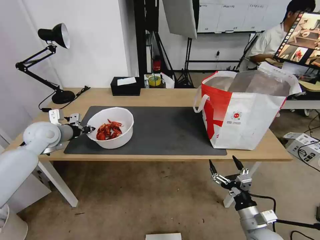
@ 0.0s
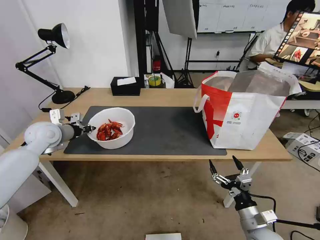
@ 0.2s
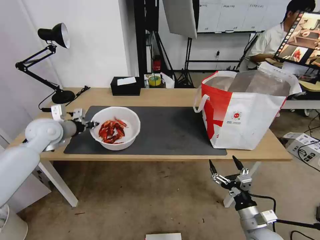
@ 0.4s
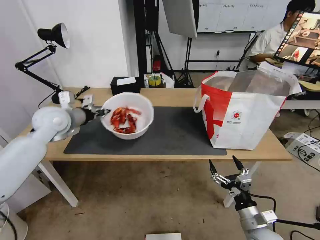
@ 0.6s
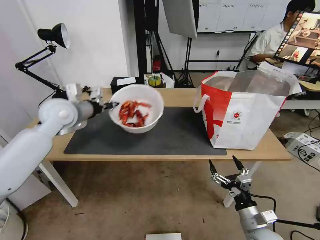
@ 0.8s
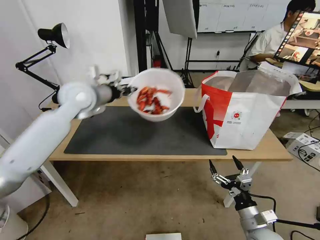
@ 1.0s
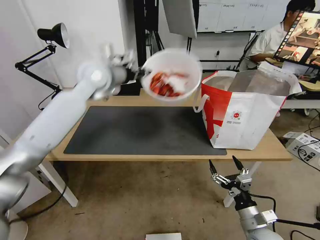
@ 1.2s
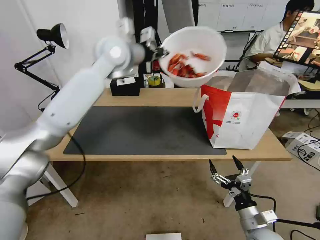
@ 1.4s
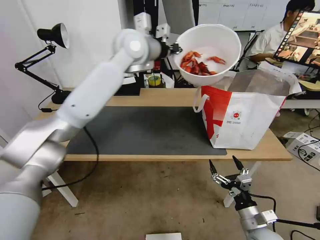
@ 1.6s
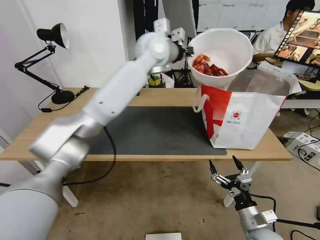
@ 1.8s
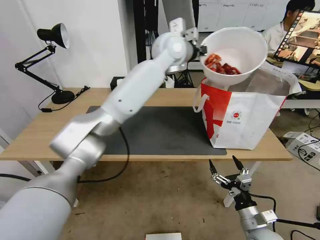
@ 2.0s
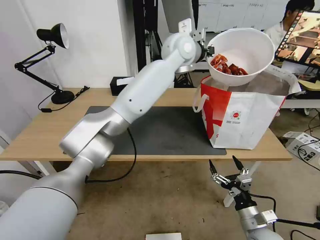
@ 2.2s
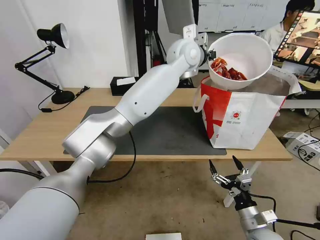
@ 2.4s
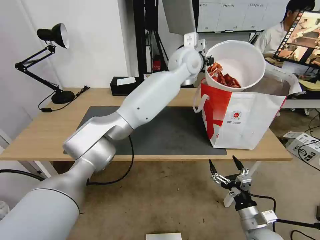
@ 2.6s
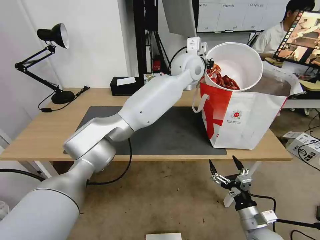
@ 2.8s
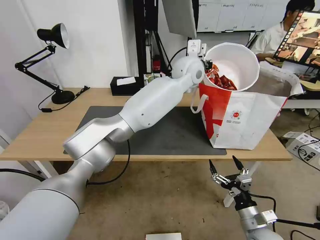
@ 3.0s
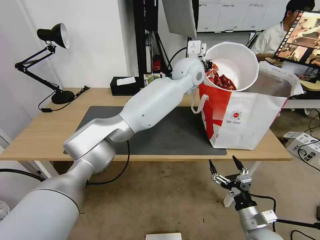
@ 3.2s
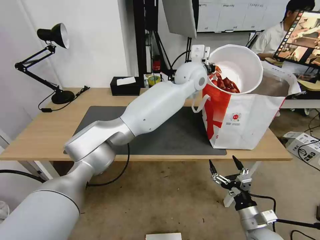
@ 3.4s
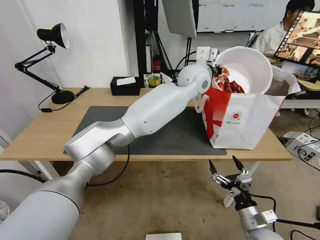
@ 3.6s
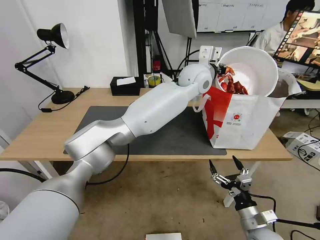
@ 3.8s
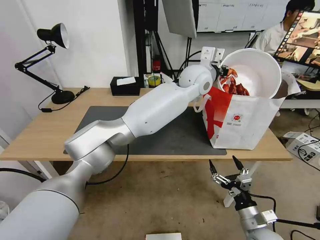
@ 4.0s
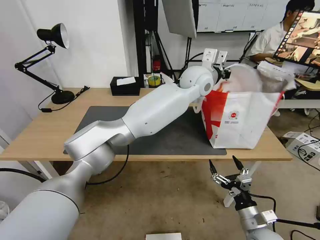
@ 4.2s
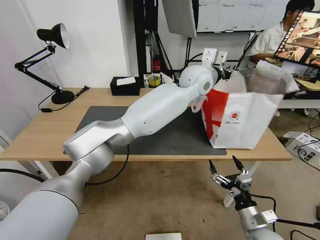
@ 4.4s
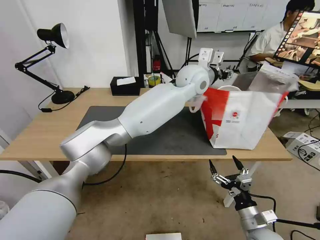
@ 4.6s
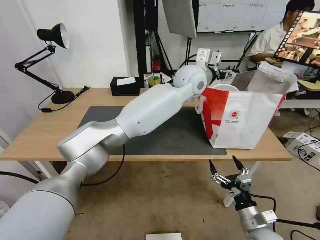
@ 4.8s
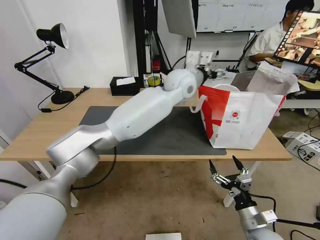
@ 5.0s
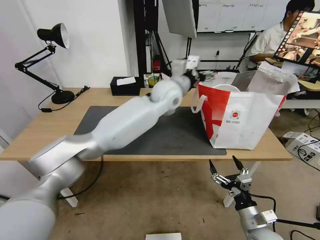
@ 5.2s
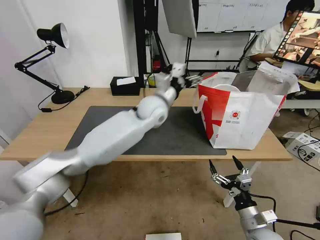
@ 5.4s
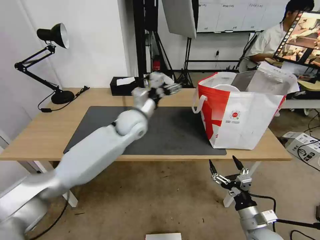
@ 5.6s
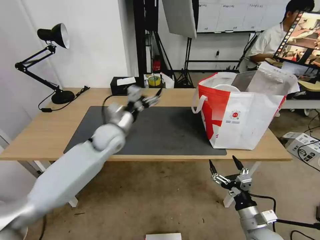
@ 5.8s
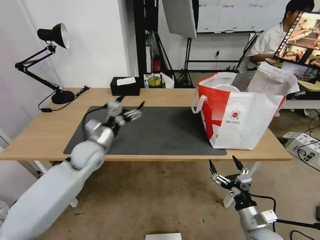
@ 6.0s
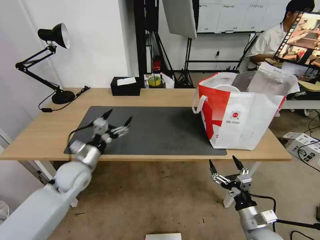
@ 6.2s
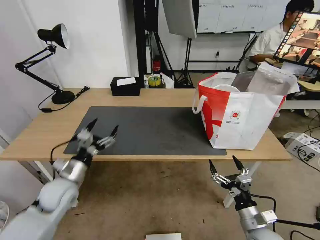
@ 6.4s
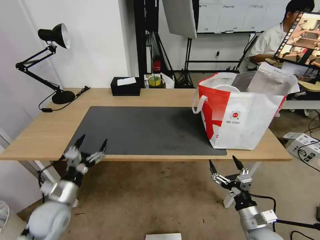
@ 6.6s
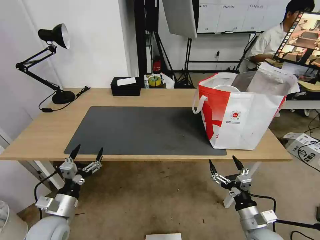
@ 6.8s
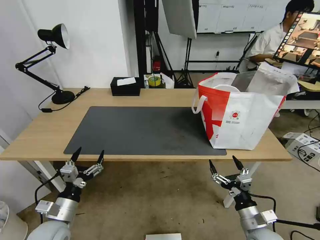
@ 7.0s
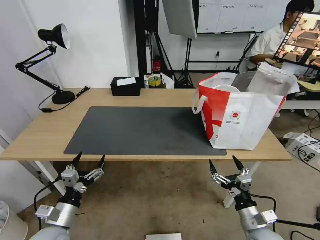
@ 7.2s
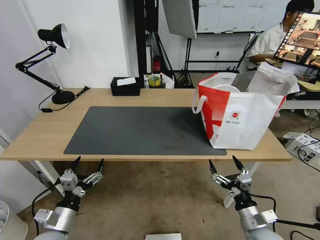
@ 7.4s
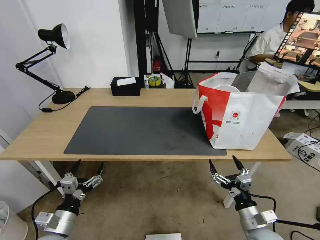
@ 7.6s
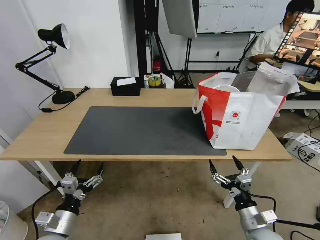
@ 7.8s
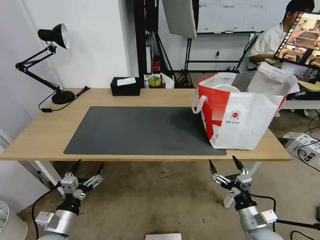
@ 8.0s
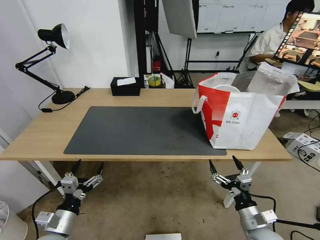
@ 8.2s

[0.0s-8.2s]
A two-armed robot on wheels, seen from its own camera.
Task of the whole recording: Pick up the trash from the table and place it into the takeout bag.
0.0s to 1.6s: The left gripper goes approximately 40 cm to the right and upward.
1.6s to 3.2s: The left gripper is displaced to the right and downward by approximately 15 cm.
3.2s to 5.0s: The left gripper opens its fingers.
5.0s to 6.6s: The left gripper moves to the left, backward and downward, some 50 cm.
6.6s to 8.2s: The left gripper goes some 10 cm backward.

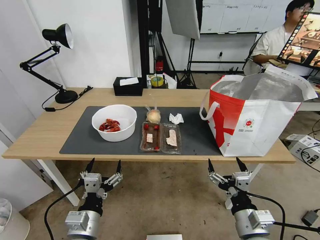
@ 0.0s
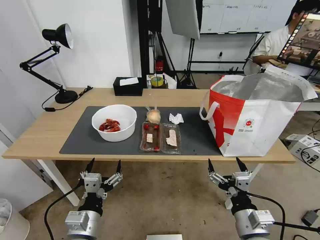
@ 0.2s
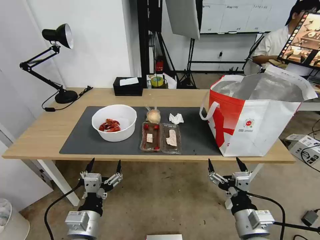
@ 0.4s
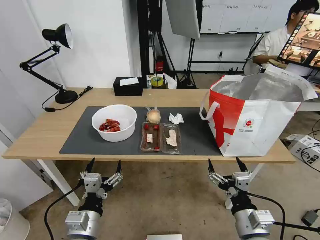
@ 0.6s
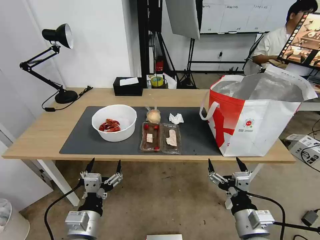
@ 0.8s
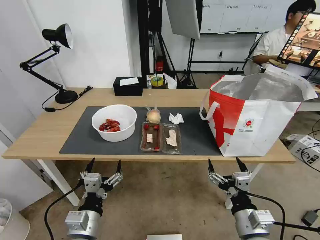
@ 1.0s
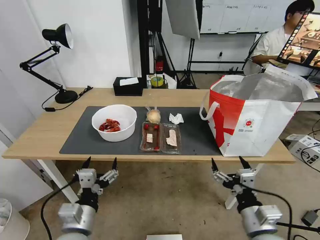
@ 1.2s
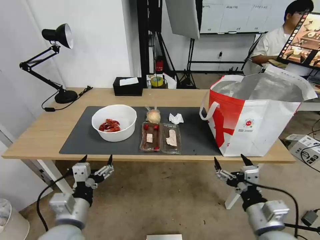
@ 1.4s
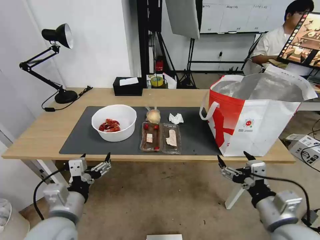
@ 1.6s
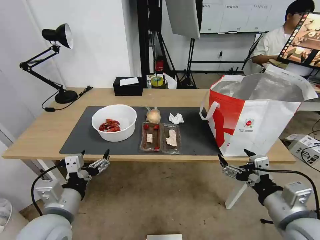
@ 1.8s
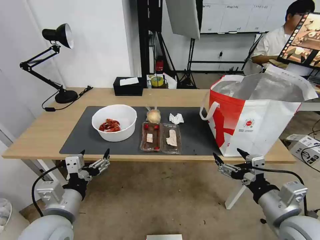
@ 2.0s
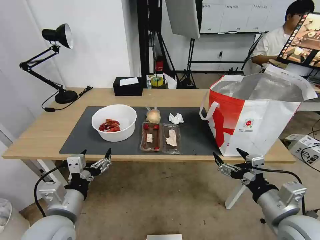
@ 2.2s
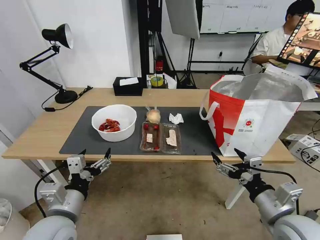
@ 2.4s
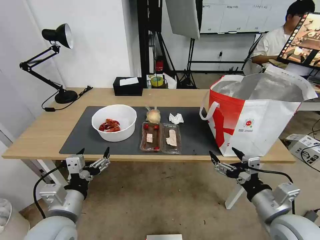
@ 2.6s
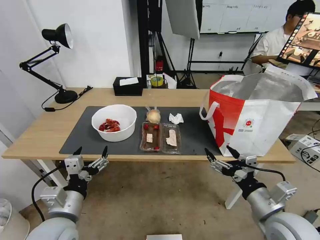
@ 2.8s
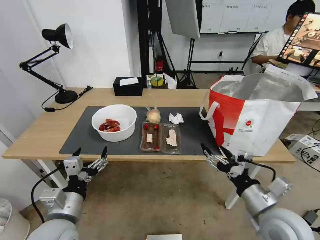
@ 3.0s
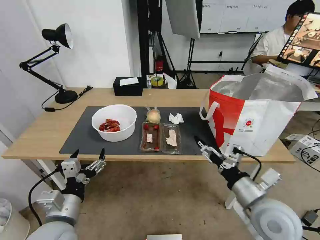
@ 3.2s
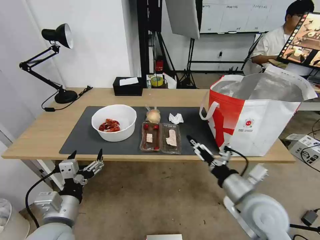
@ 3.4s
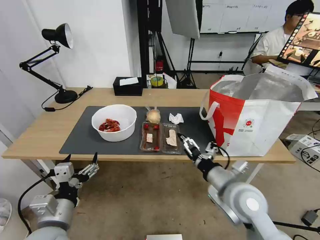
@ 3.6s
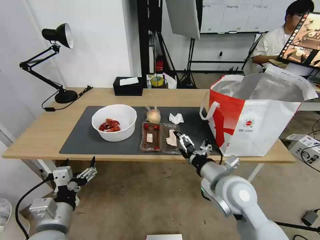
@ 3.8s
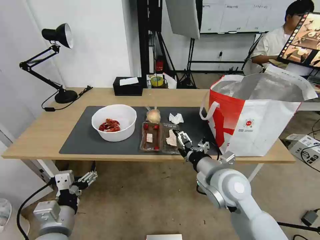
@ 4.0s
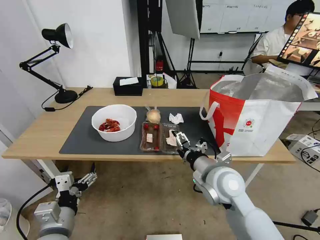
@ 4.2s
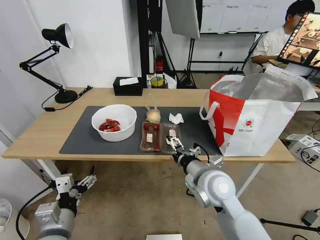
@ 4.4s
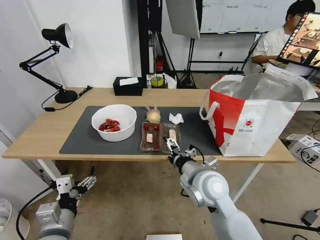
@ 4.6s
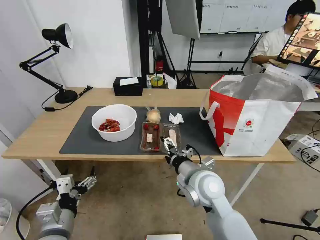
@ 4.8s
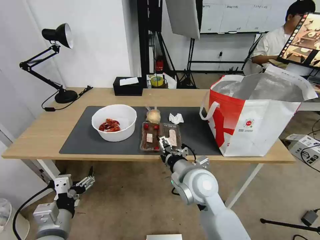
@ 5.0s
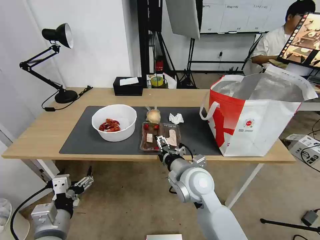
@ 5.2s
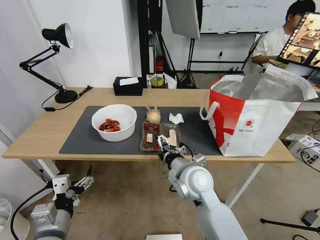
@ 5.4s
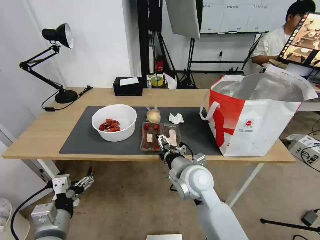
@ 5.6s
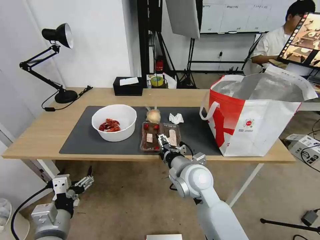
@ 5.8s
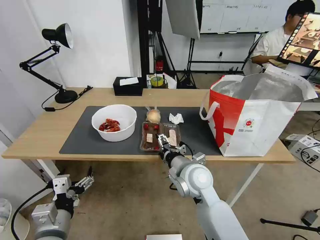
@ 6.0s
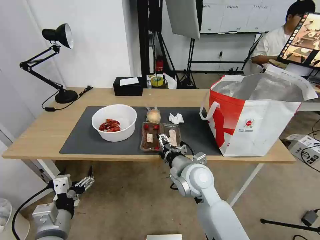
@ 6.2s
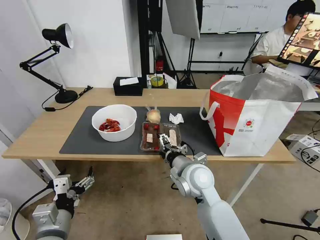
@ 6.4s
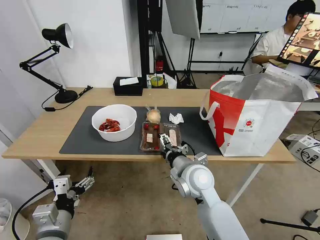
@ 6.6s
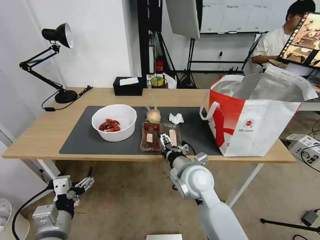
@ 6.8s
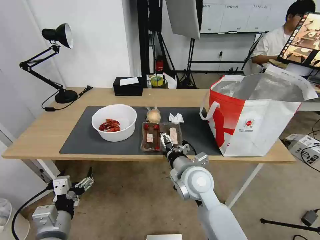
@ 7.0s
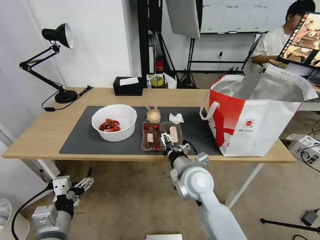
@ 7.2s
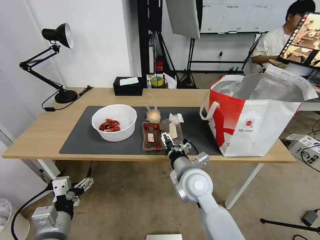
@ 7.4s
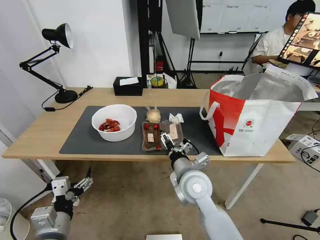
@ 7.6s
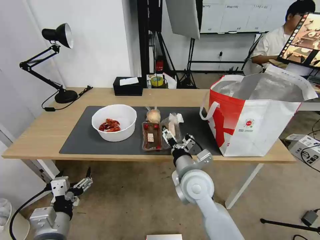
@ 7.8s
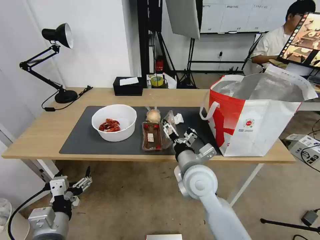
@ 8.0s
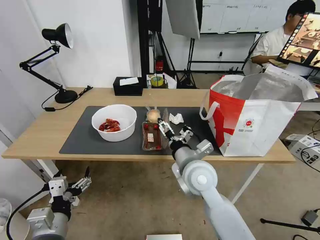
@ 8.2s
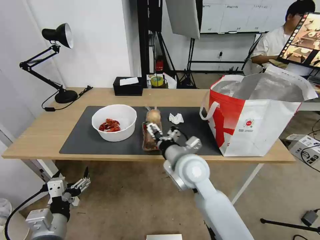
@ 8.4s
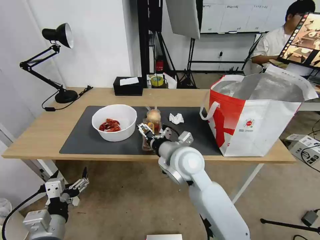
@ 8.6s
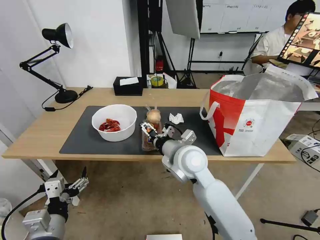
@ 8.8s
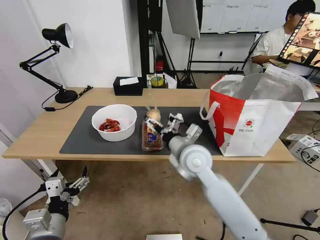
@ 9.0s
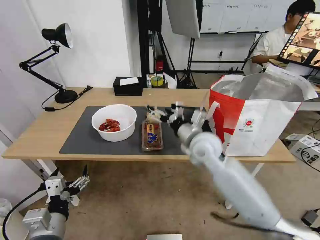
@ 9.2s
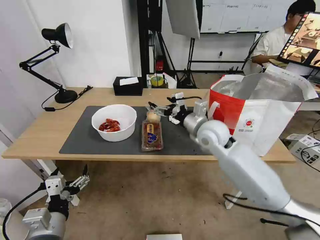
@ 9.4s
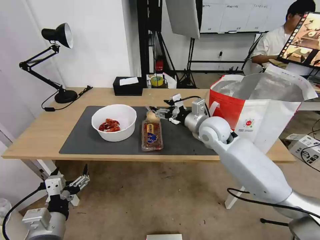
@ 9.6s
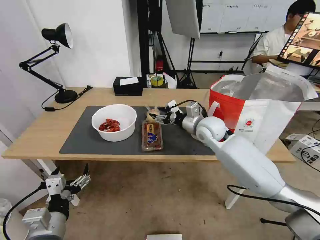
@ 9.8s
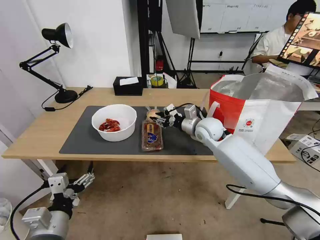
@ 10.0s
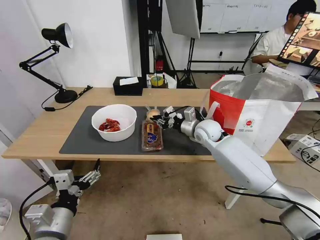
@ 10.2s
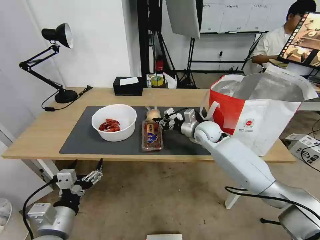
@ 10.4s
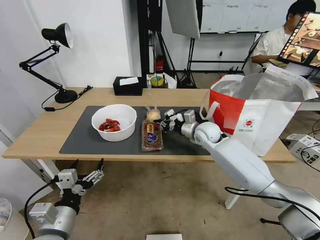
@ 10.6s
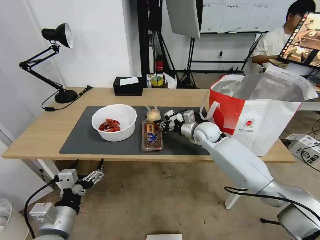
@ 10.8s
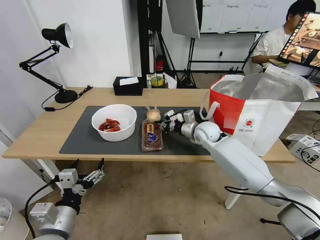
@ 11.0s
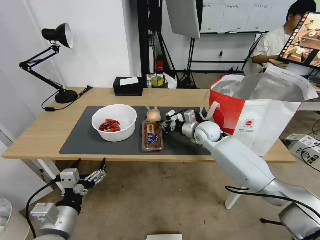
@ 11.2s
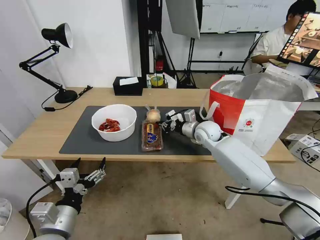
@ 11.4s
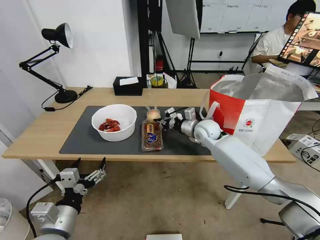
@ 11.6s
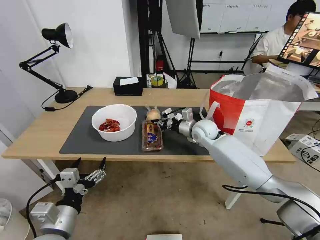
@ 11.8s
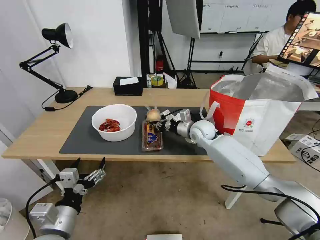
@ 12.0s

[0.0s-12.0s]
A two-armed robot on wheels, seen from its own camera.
Task of the whole recording: Pick up the trash from the table and place it into the takeout bag.
3.0s to 4.4s: The right gripper is displaced to the left and forward by approximately 15 cm.
4.4s to 6.0s: The right gripper is displaced to the left by approximately 5 cm.
7.6s to 9.0s: The right gripper goes some 10 cm forward and upward.
9.0s to 10.4s: The right gripper shifts approximately 20 cm forward and to the right, and closes up.
10.4s to 12.0s: There are only small adjustments of the grippers.

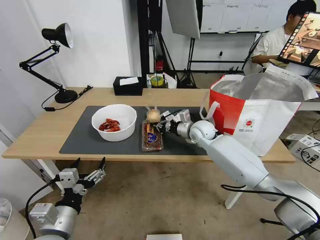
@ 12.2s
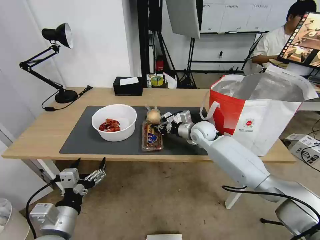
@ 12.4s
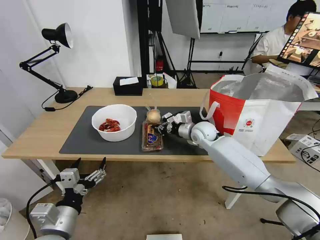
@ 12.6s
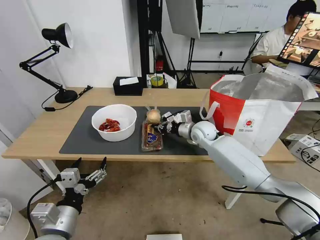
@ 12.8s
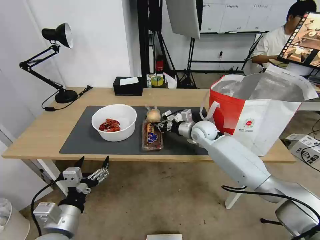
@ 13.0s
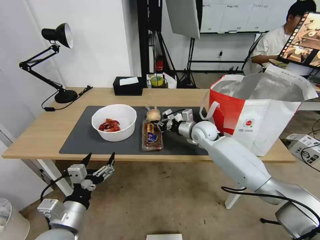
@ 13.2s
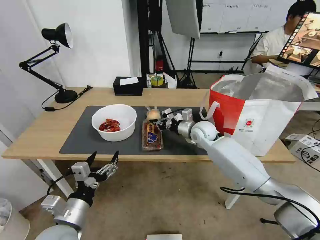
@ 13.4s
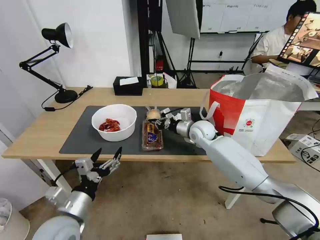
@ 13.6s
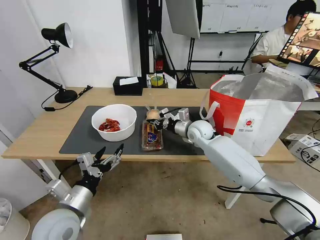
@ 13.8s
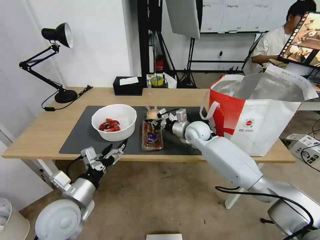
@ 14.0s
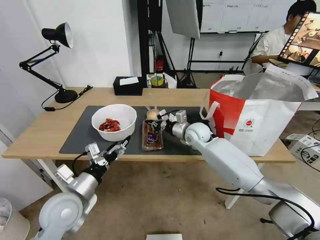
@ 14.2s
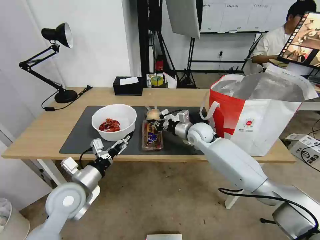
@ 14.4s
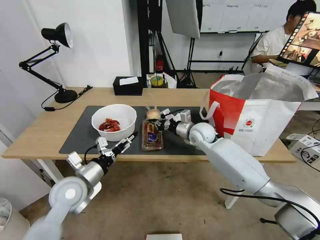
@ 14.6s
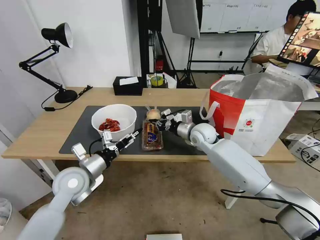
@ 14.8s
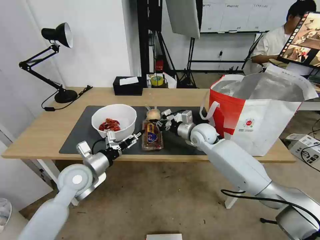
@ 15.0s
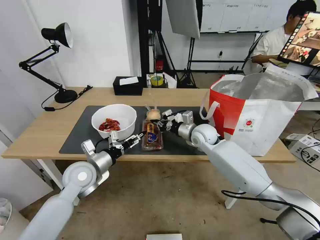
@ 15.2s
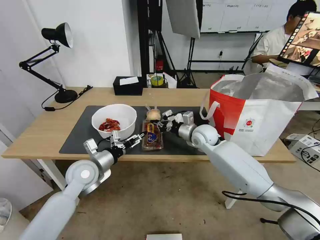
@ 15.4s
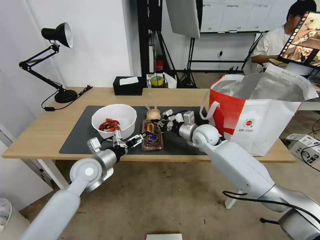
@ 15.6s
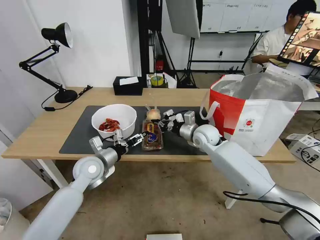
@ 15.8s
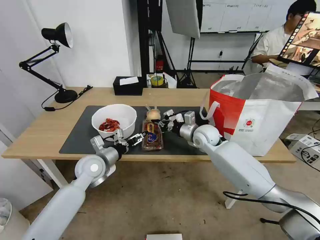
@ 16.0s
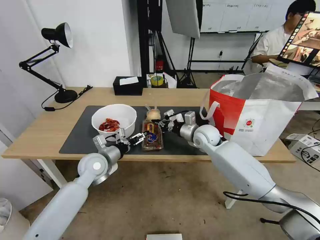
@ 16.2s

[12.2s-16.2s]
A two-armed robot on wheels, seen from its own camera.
Task of the whole recording: Pick up the trash from the table and place it into the takeout bag.
13.6s to 14.8s: The left gripper goes some 10 cm forward.
14.8s to 16.2s: The left gripper moves forward, roughly 10 cm.
